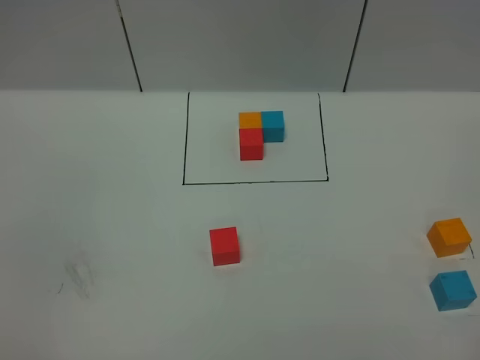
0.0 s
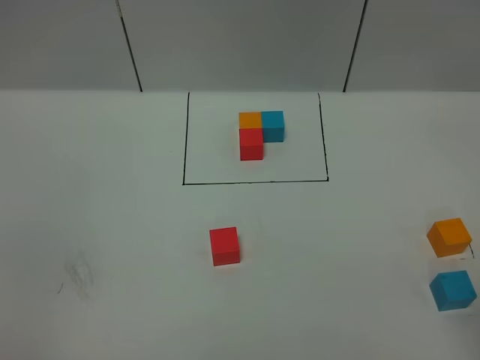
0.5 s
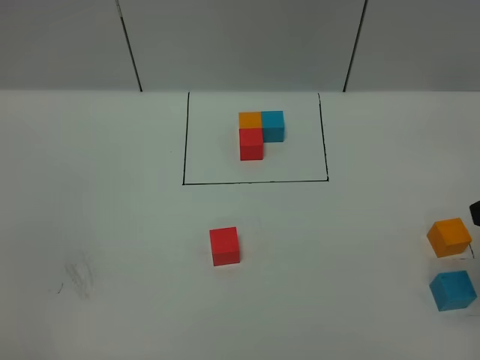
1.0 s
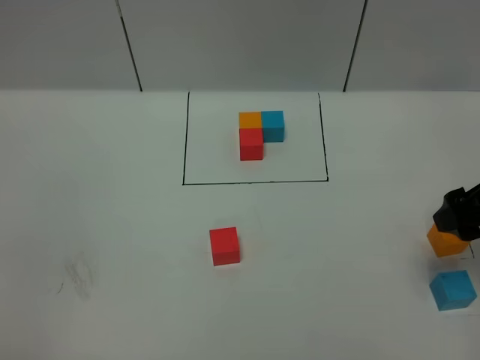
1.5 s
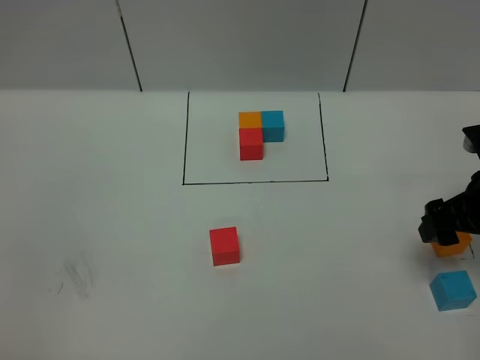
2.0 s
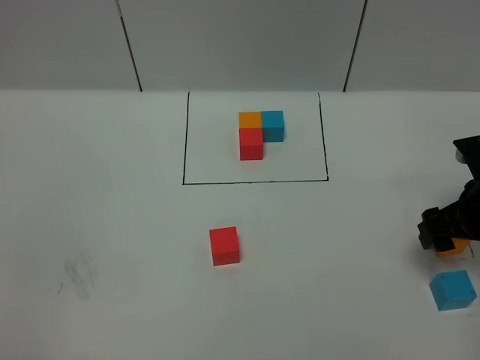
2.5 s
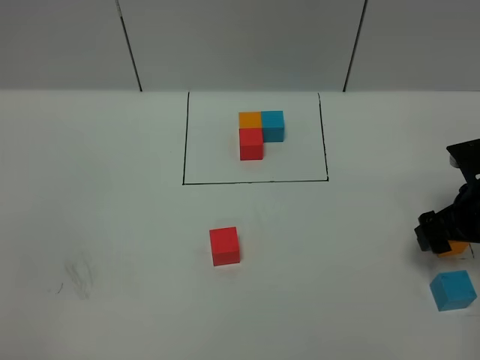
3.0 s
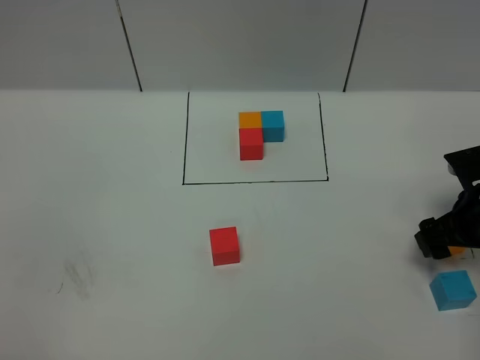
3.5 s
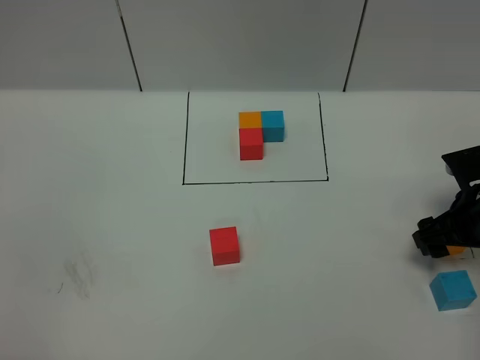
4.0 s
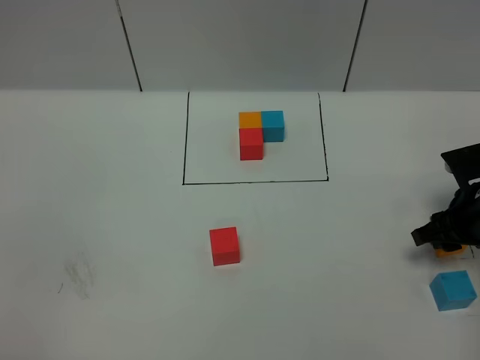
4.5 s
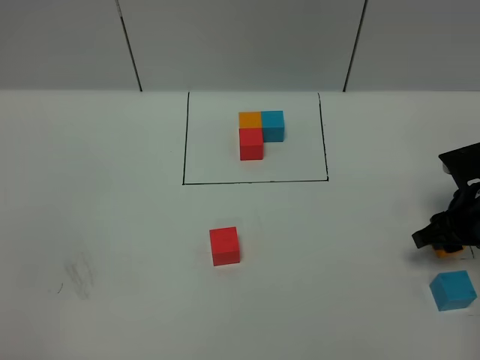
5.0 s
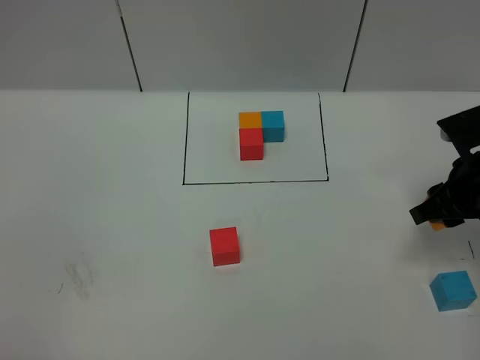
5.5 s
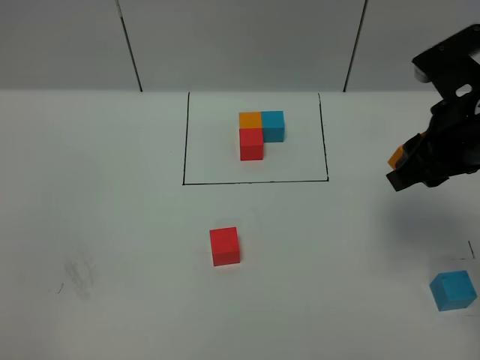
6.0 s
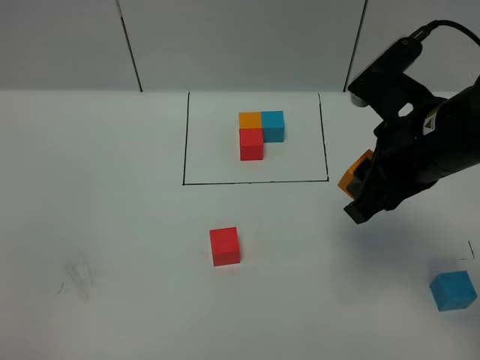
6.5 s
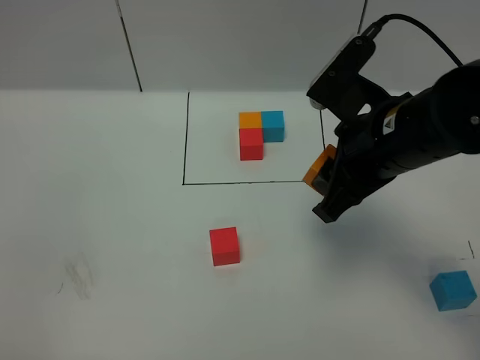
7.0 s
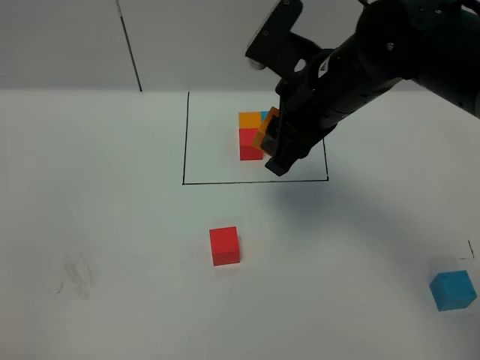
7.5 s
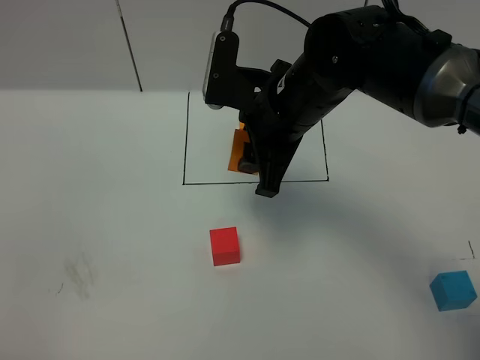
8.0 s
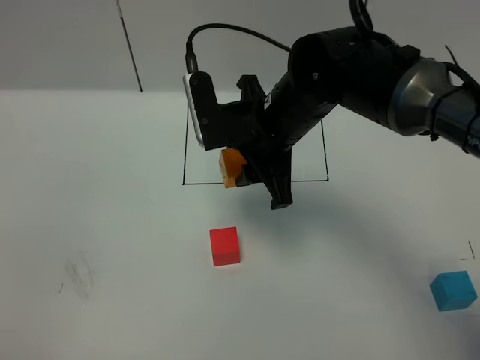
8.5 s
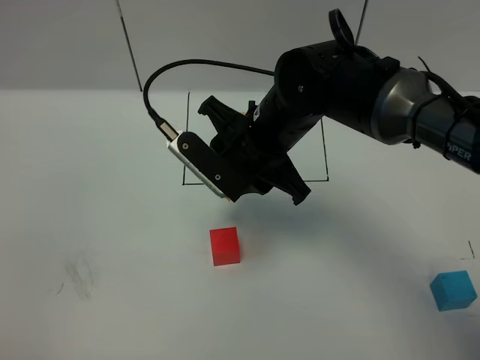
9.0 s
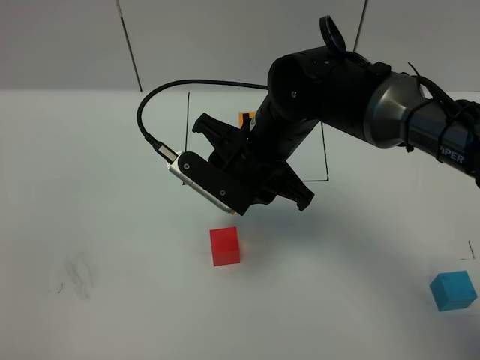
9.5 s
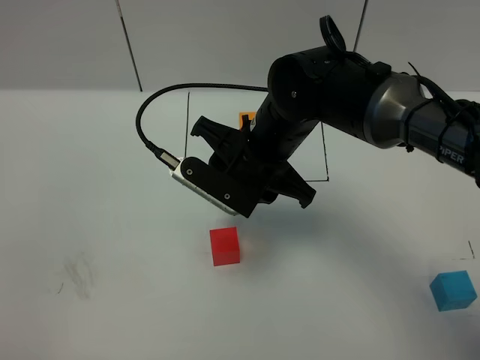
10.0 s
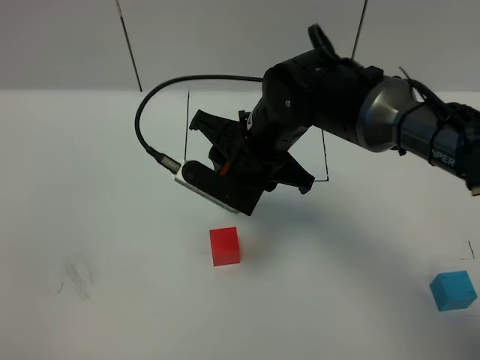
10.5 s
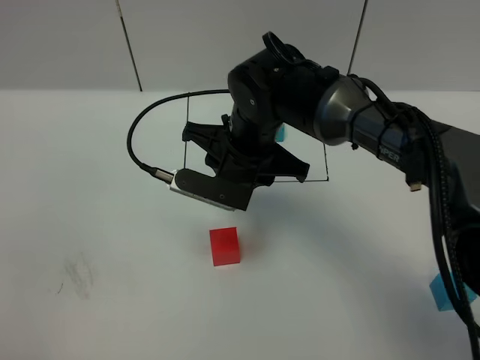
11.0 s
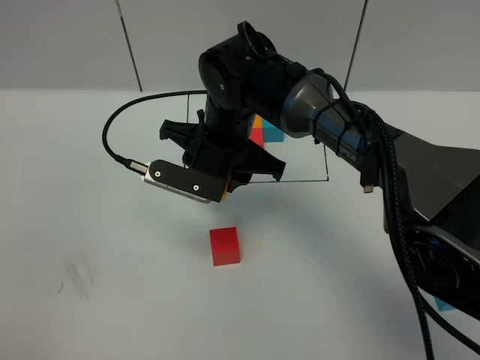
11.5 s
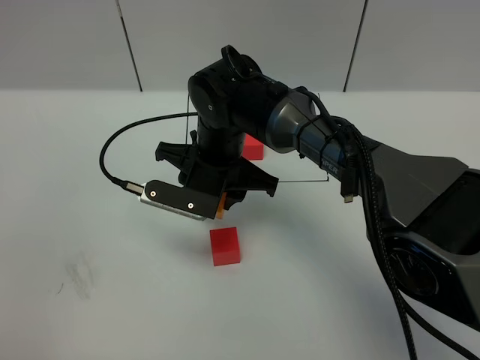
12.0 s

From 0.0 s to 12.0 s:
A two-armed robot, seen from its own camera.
Task of the whole recording: According to the building block template in front, assemble the scattered blocks together.
From 0.0 s to 2.0 s: The right gripper moves forward and downward, about 30 cm.
From 2.0 s to 4.0 s: The right gripper shifts roughly 5 cm downward.
From 4.0 s to 6.0 s: The right gripper shifts roughly 20 cm upward and to the left, and closes up.
From 6.0 s to 8.0 s: The right gripper heads to the left, covering about 15 cm.
From 8.0 s to 10.0 s: The right gripper changes place by approximately 5 cm.
From 10.0 s to 12.0 s: The right gripper travels to the left by about 5 cm.

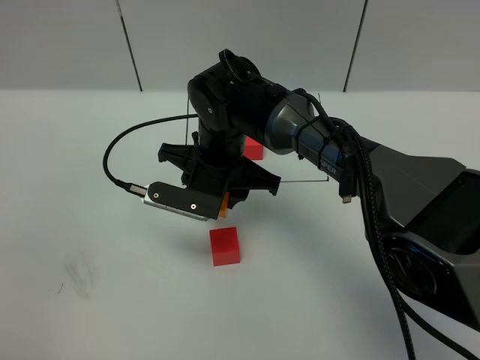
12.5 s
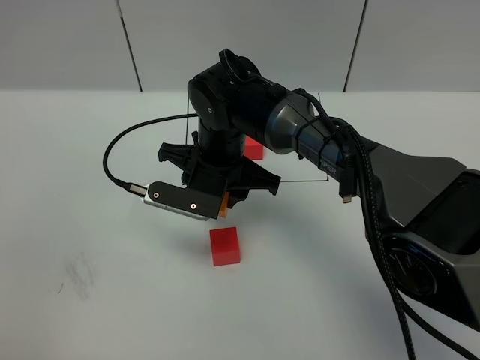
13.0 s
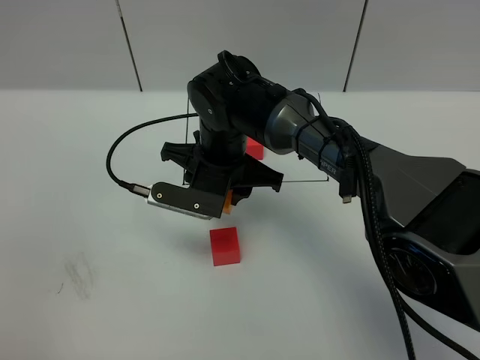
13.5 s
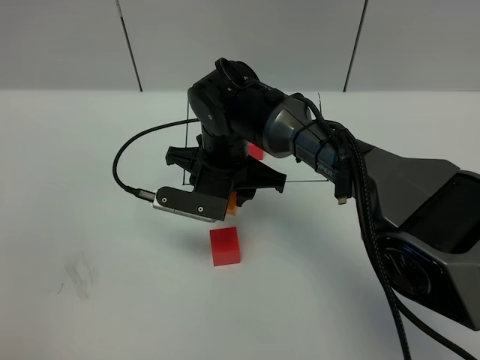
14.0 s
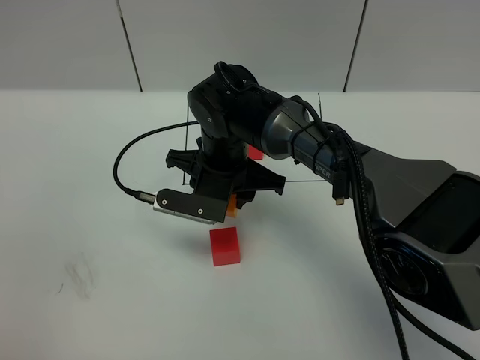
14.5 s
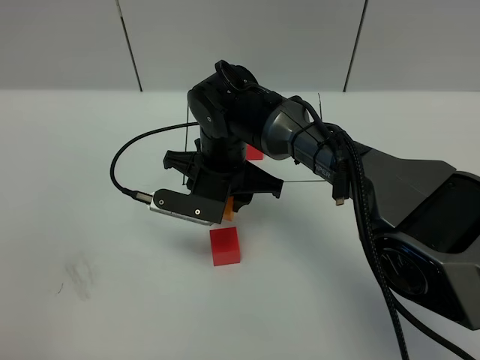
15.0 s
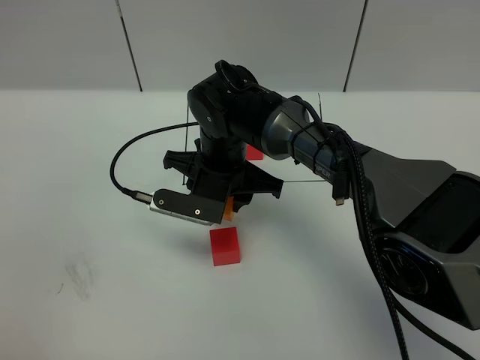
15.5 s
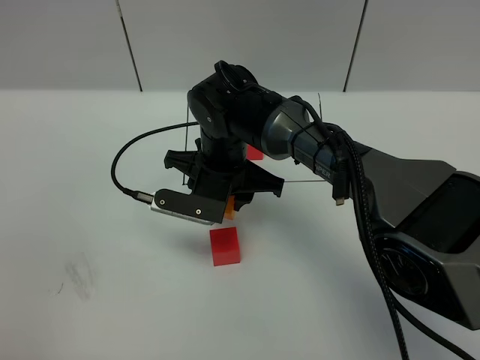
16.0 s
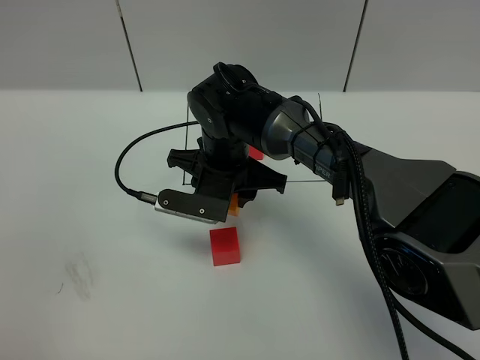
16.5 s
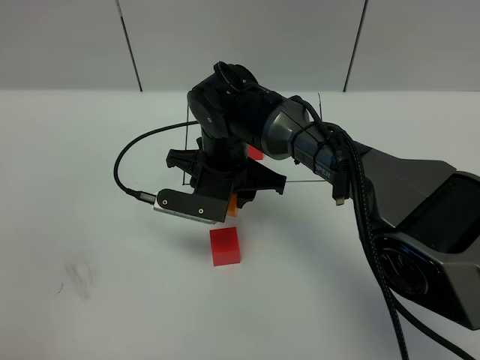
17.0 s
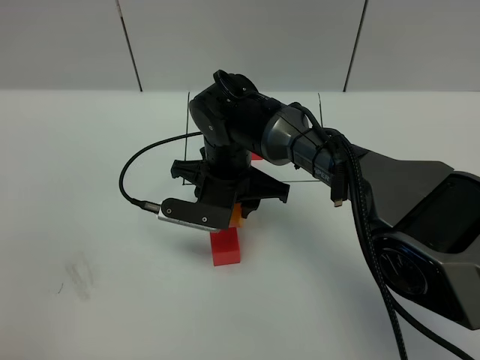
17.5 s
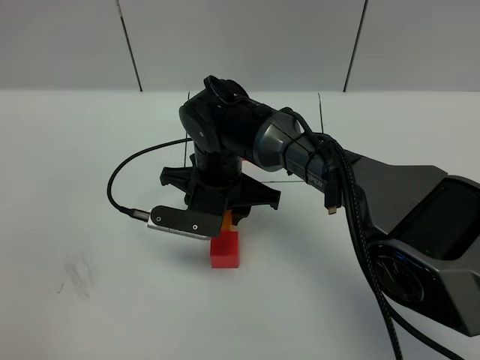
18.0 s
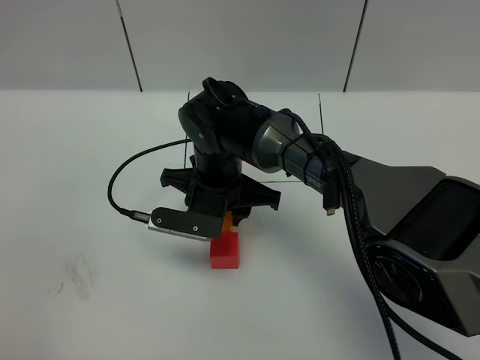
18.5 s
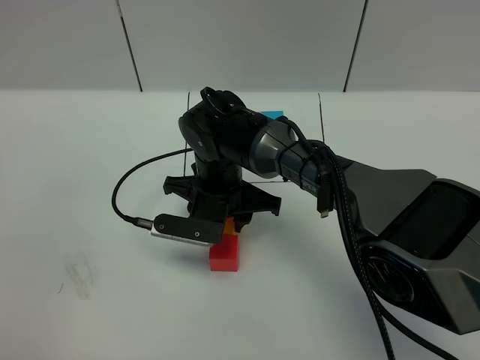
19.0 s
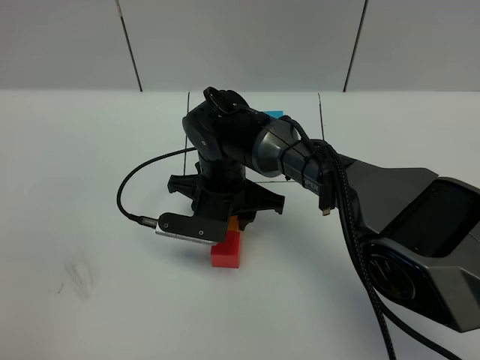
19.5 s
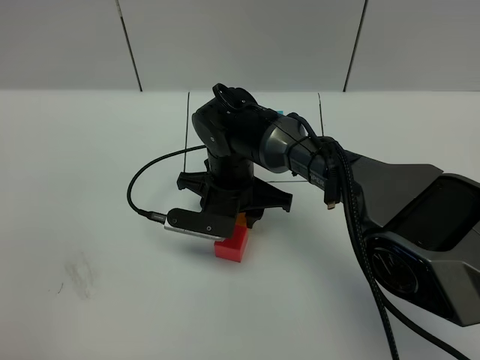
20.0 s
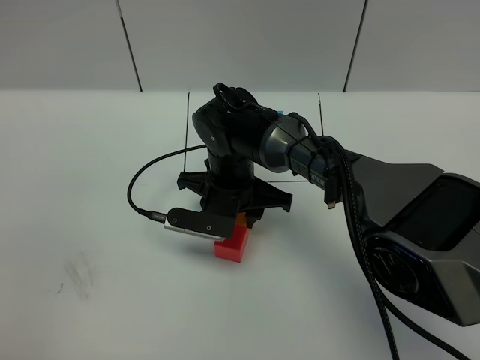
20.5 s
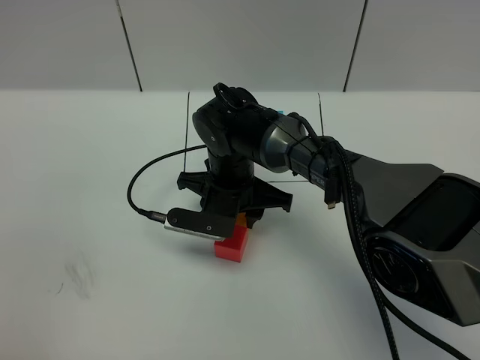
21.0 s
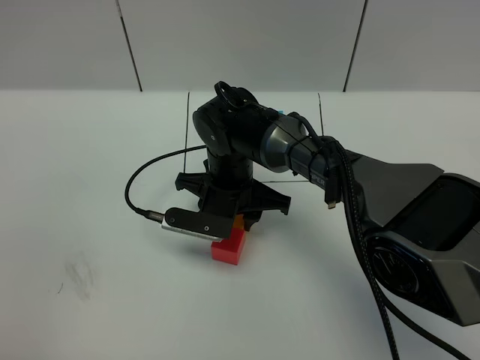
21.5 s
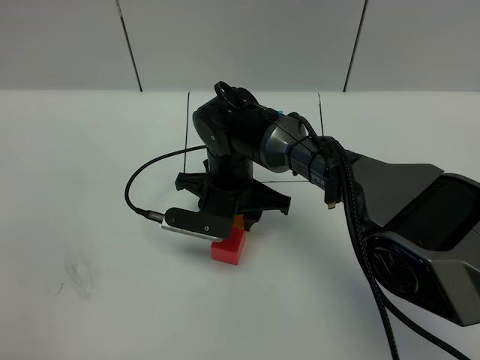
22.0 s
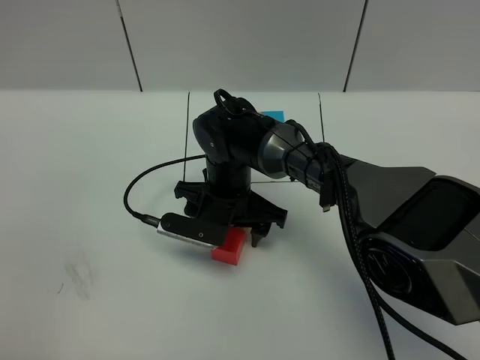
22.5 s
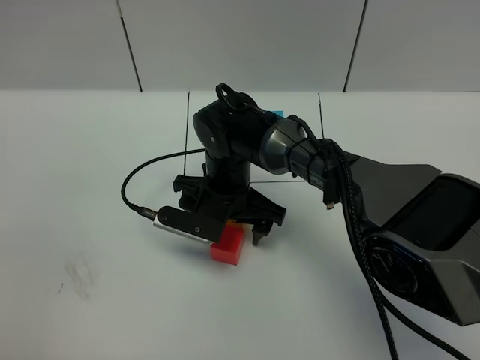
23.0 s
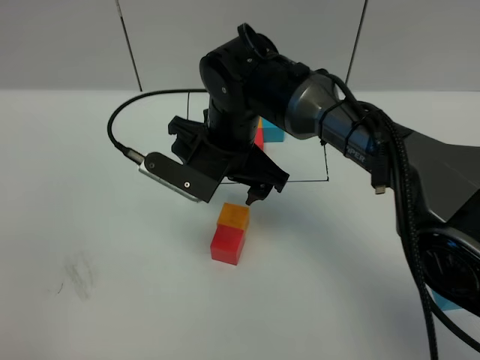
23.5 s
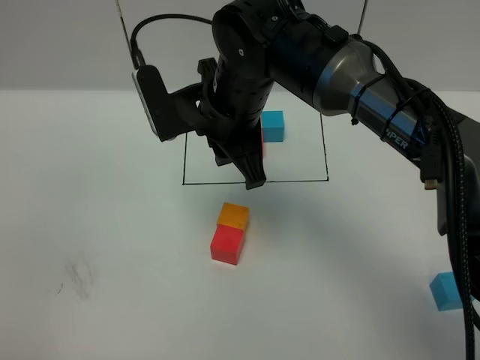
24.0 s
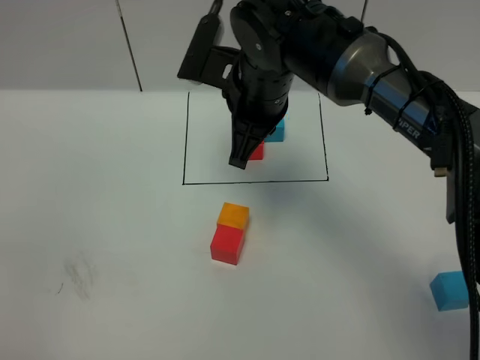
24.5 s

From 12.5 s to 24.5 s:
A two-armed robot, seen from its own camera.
Task of the whole recording: According to the building block template in front, assemble the scattered blocks together.
Step, from 12.5 s to 24.0 s: Put the orange cube in the front of the red cube.
From 12.5 s to 14.5 s: The grippers move only a little.
From 14.5 s to 16.5 s: Neither gripper changes place.
From 16.5 s to 20.5 s: The grippers stay close to where they were, moving slightly.
From 20.5 s to 22.5 s: The right gripper opens.
From 22.5 s to 24.5 s: The right gripper heads upward, covering about 15 cm, and closes its fingers.

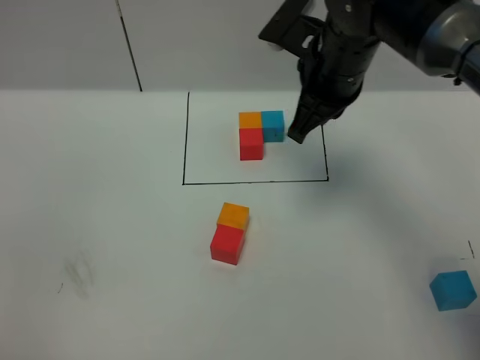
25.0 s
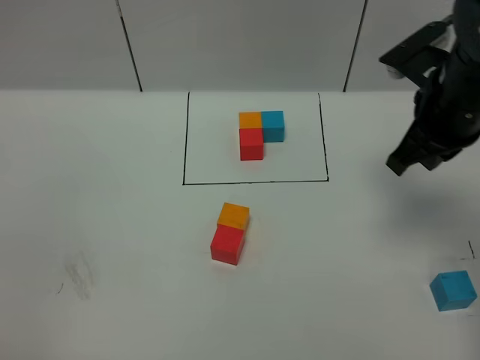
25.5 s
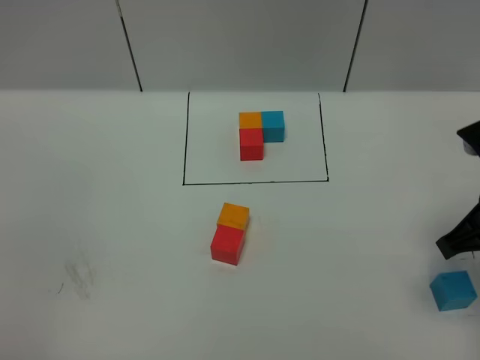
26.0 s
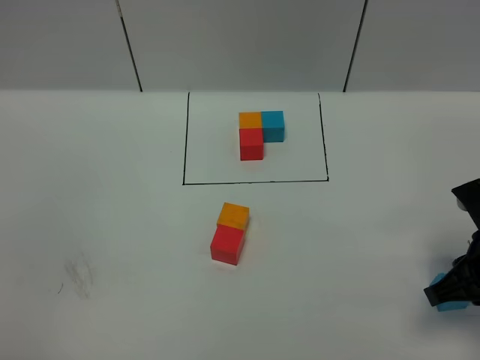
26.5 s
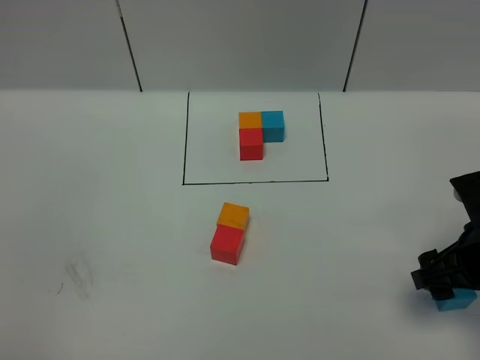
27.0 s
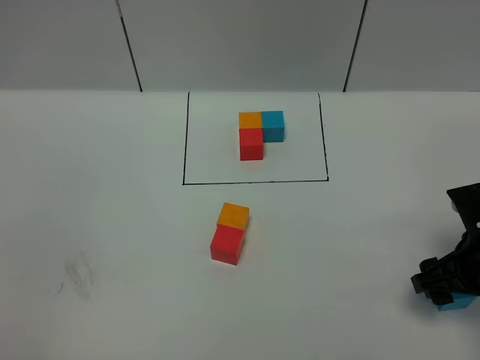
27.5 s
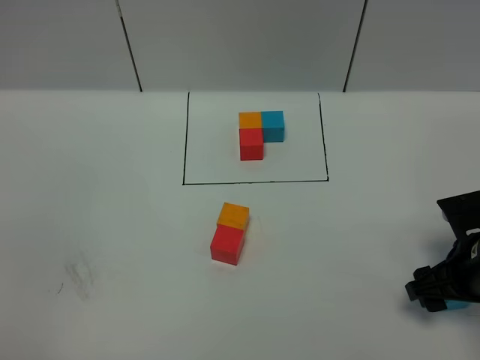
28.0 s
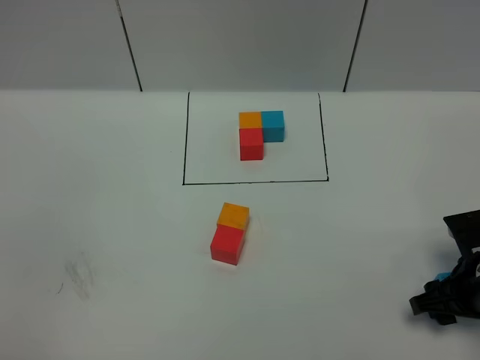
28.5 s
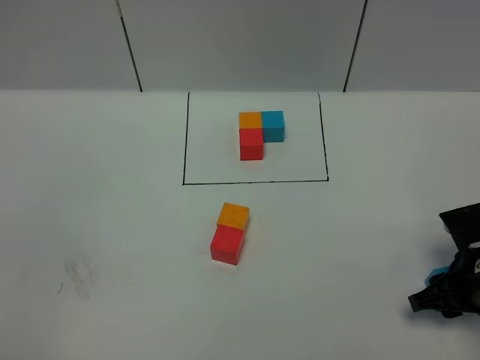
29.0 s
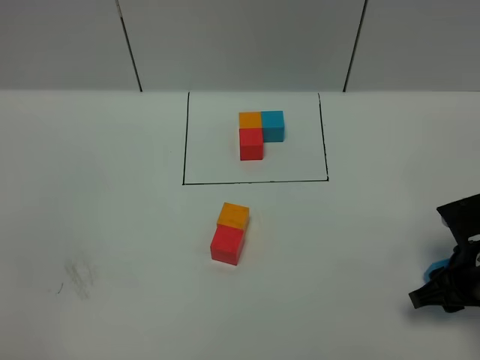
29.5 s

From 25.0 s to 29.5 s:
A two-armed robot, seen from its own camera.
Task of the whole recording: According to the building block template in front, assemble the scattered blocks together.
From 25.0 s to 27.0 s: The right gripper goes about 25 cm backward, to the right and downward, and opens its fingers.
From 27.0 s to 29.5 s: The right gripper is displaced downward by some 5 cm, and closes.
